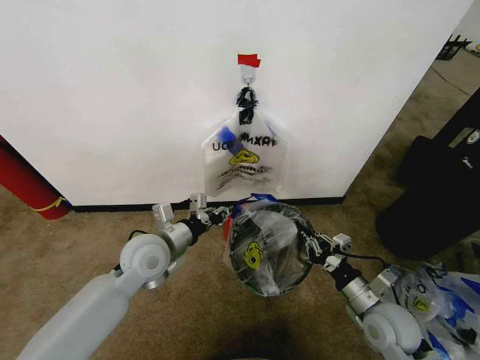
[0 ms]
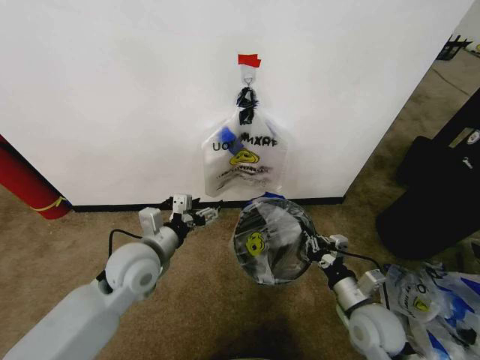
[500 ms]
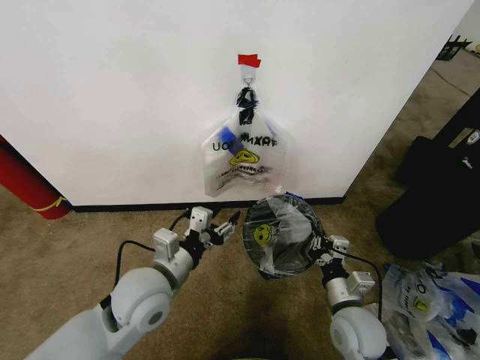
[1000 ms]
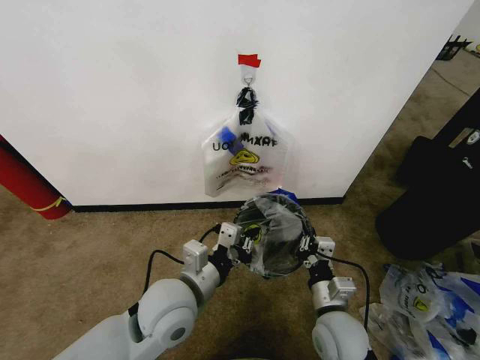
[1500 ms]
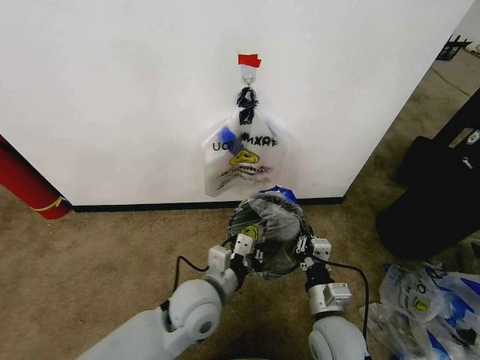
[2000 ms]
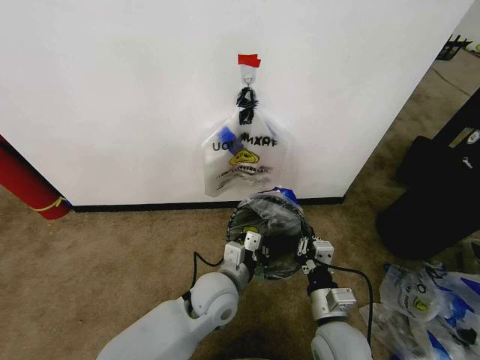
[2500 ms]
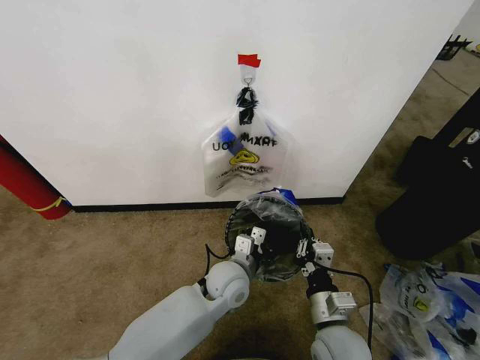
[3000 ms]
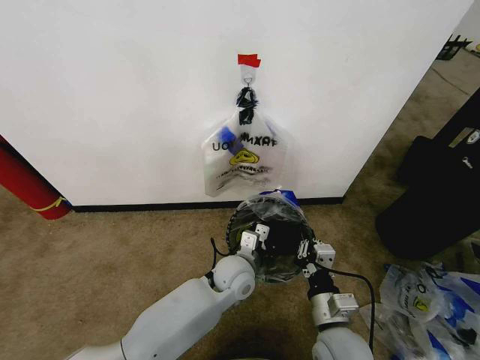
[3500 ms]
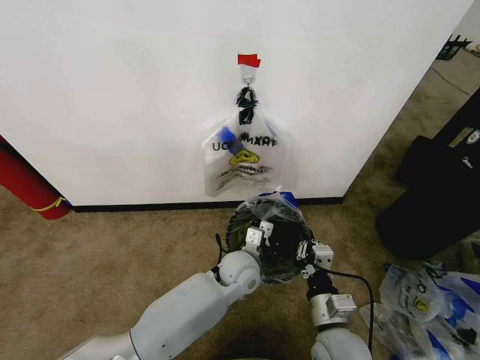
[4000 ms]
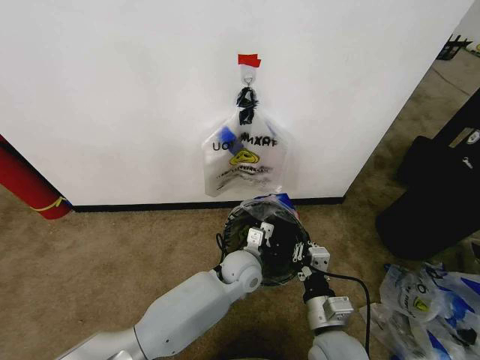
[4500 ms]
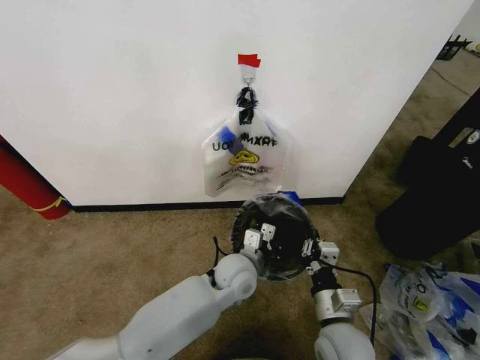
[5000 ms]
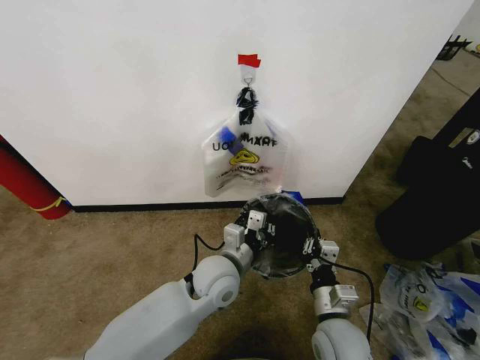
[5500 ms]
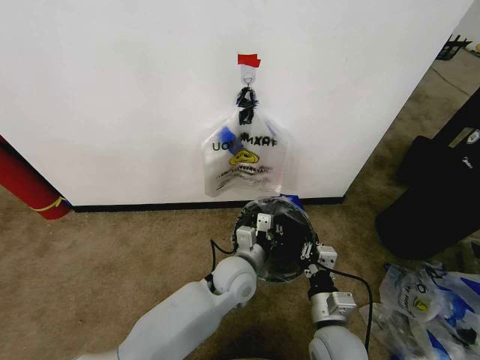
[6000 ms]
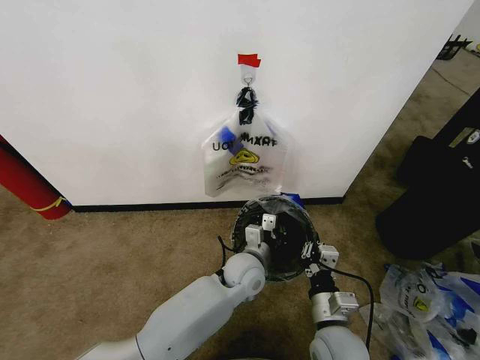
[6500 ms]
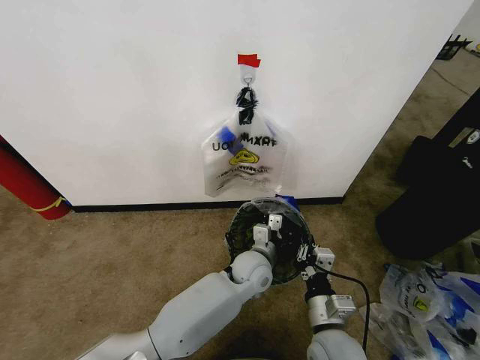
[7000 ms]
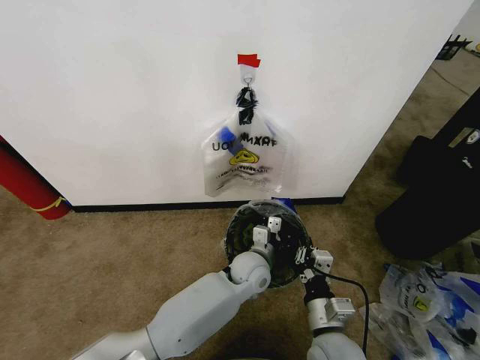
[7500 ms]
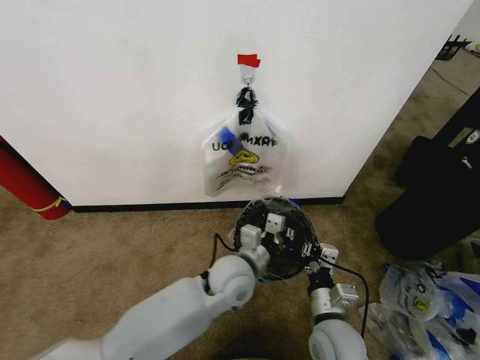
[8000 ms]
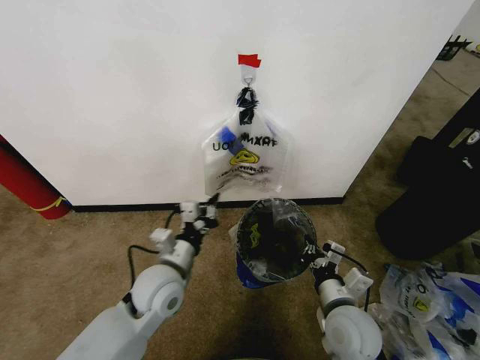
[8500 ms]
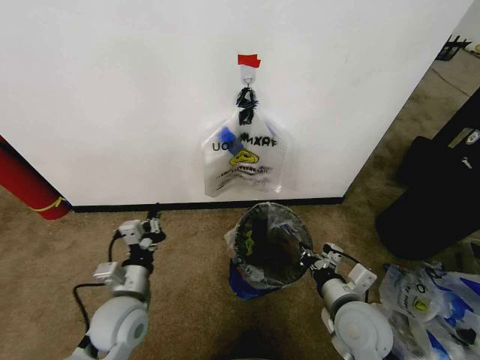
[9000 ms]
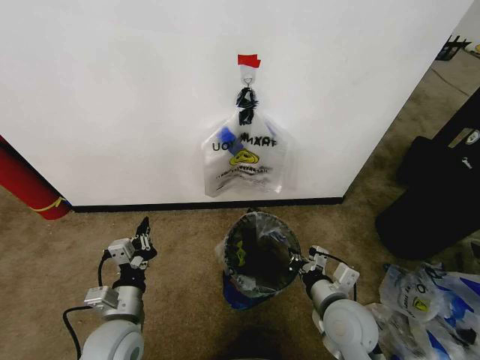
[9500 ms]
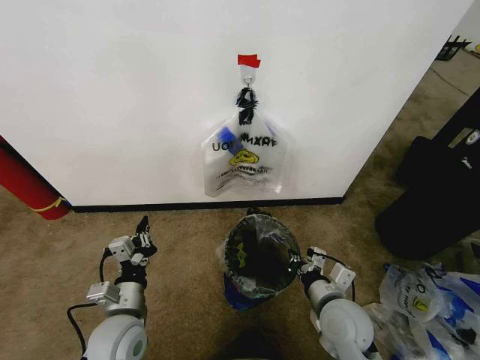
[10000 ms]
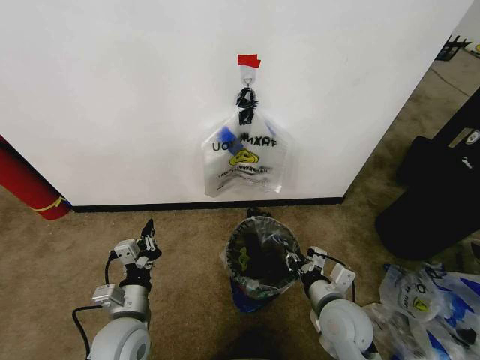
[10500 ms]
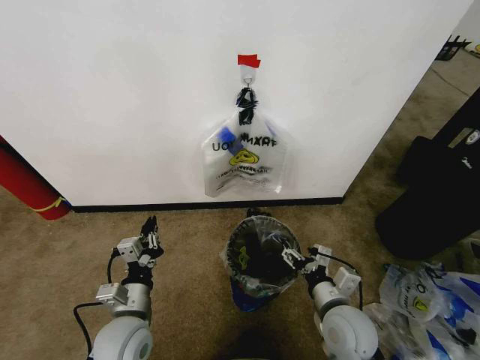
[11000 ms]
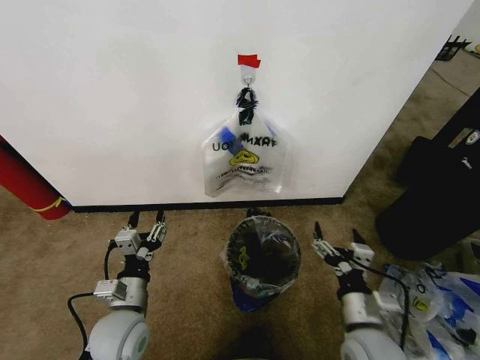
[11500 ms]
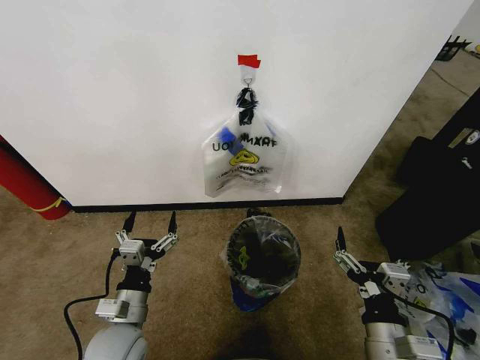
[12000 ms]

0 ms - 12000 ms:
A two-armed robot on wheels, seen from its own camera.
Task of the whole recording: Pick up the garbage bag from the wall and place it over the trash bin.
0 ms - 2000 ms: The right gripper is displaced to the left by roughly 10 cm, while the left gripper travels to the right and backward by approximately 15 cm, and opens, then closes once more.
2000 ms - 4000 ms: The left gripper goes about 15 cm forward, to the right and downward.
8000 ms - 10000 ms: The left gripper shifts approximately 25 cm to the left and backward.
10000 ms - 12000 ms: The left gripper opens up. Meanwhile the right gripper travels backward by some 10 cm, and opens.

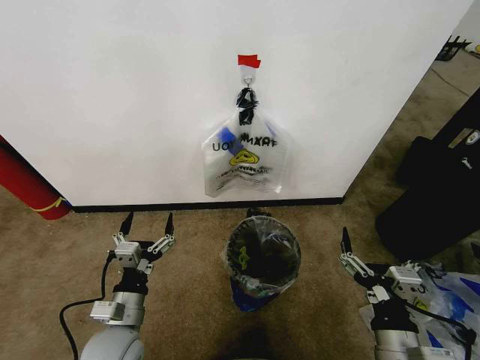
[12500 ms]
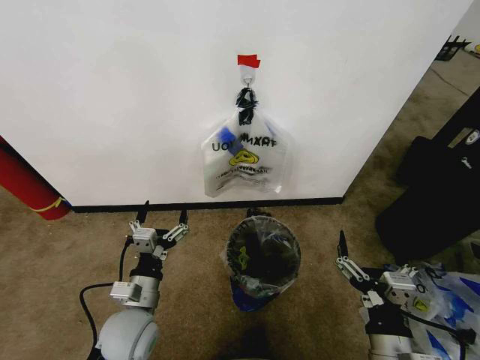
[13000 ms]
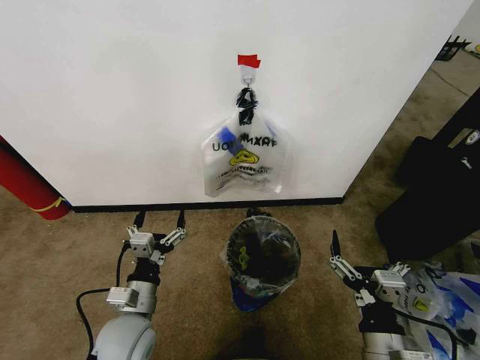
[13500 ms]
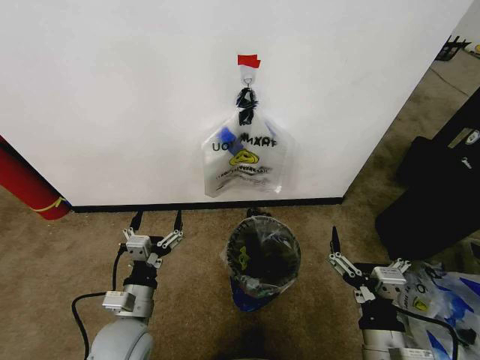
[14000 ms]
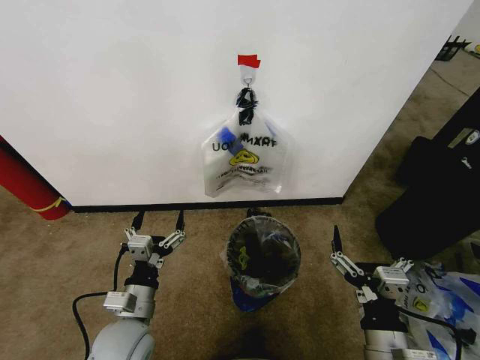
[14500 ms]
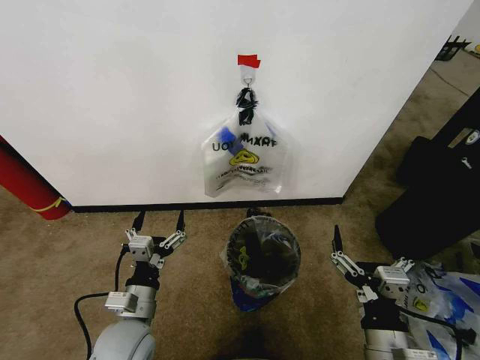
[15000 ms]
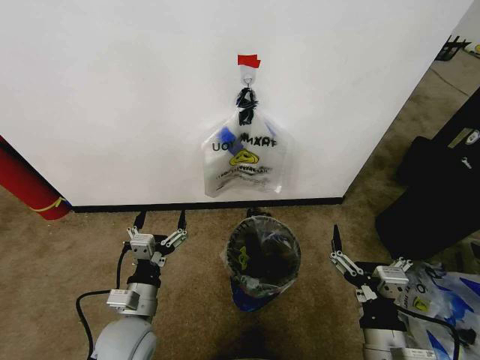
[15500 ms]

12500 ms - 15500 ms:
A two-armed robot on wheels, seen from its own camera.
Task of the whole recording: Pick up the garbage bag from the wall and place it over the trash bin.
12500 ms - 14000 ms: There are only small adjustments of the grippers.
14000 ms - 15500 ms: Neither gripper changes place.
